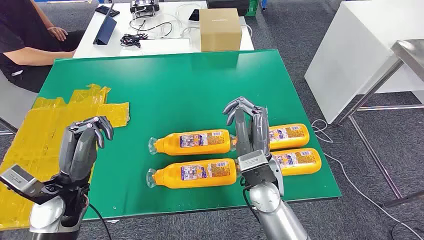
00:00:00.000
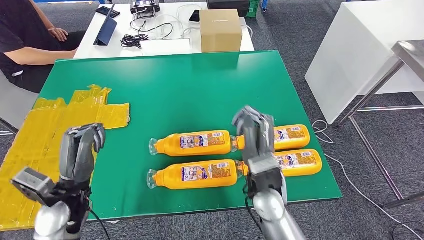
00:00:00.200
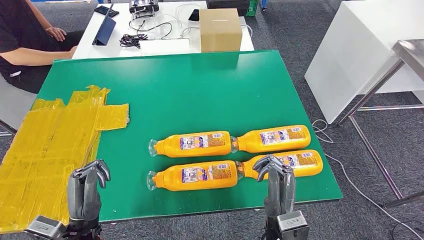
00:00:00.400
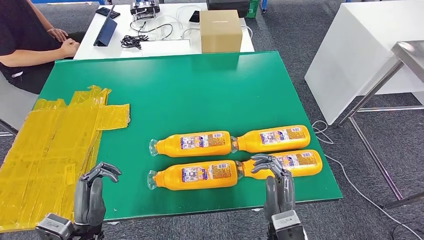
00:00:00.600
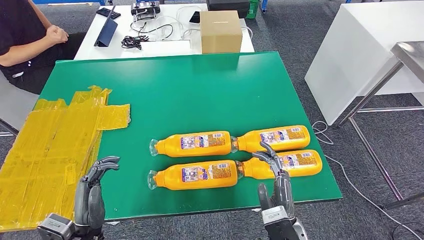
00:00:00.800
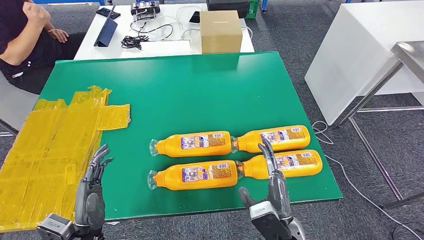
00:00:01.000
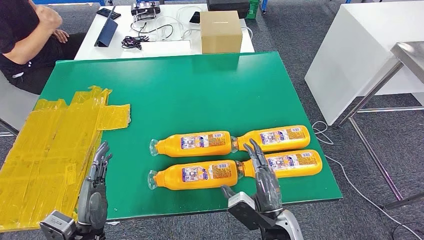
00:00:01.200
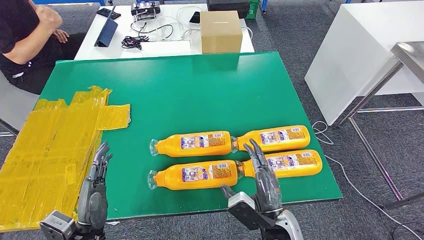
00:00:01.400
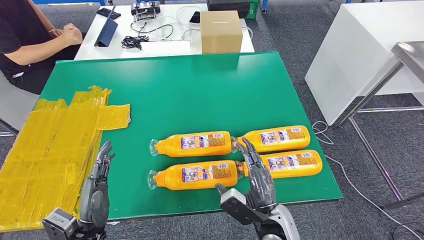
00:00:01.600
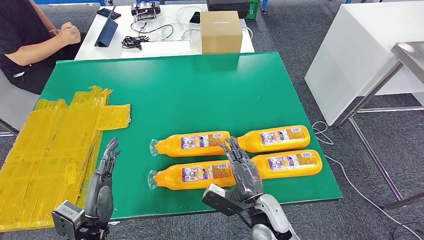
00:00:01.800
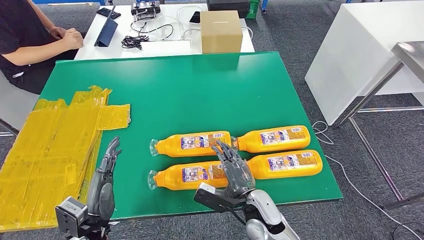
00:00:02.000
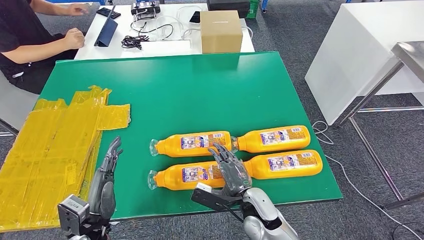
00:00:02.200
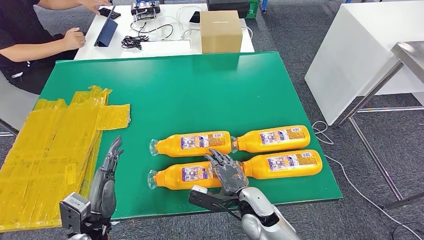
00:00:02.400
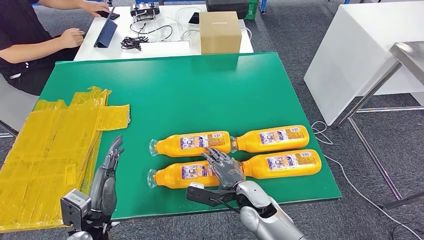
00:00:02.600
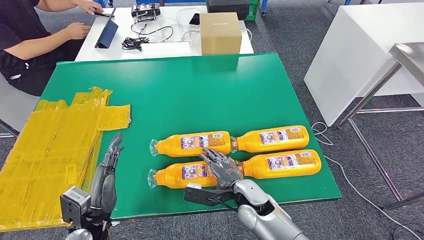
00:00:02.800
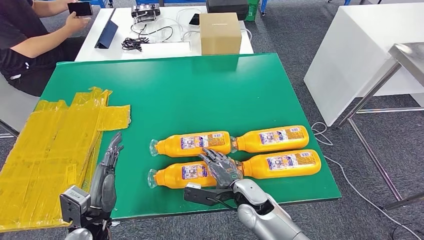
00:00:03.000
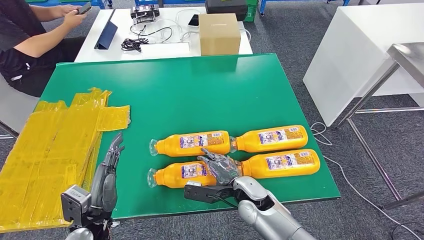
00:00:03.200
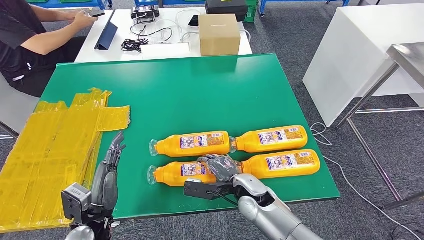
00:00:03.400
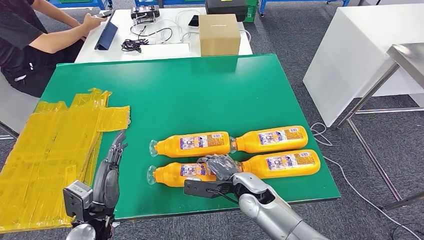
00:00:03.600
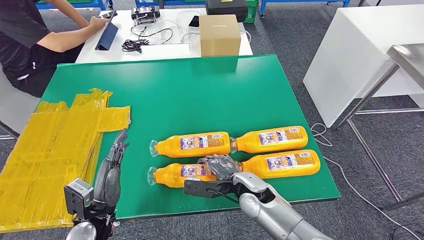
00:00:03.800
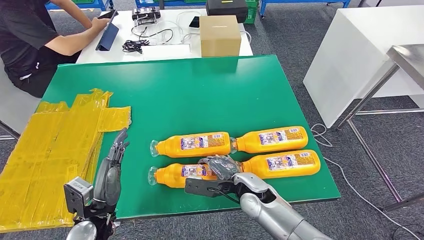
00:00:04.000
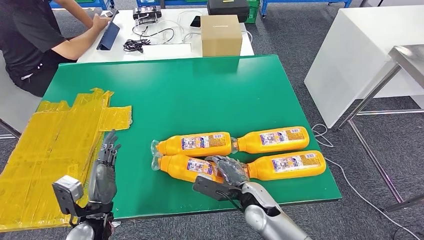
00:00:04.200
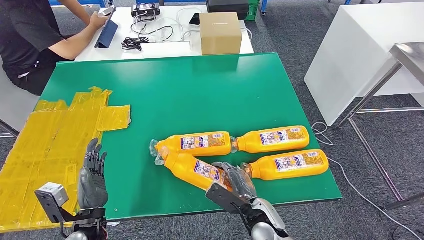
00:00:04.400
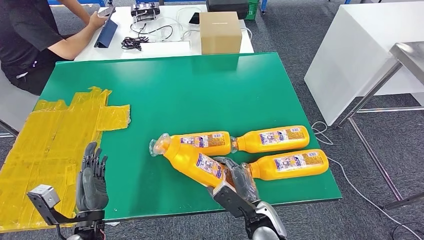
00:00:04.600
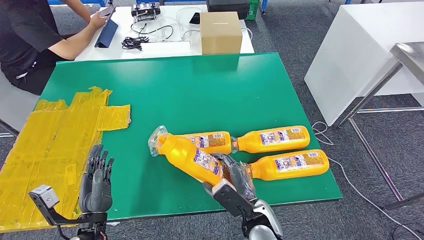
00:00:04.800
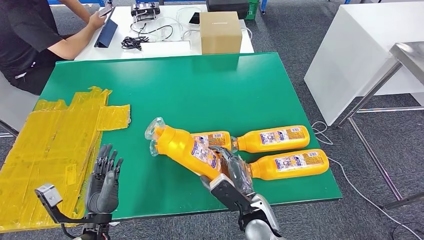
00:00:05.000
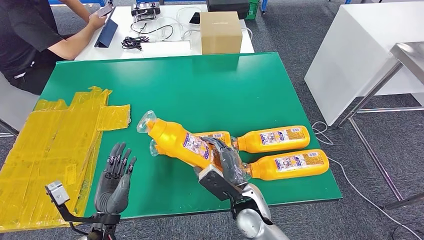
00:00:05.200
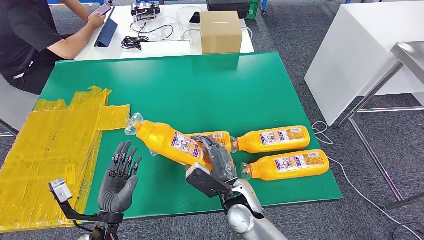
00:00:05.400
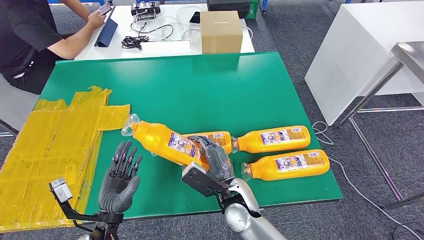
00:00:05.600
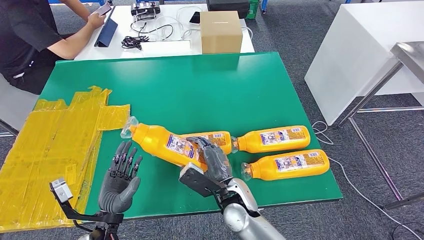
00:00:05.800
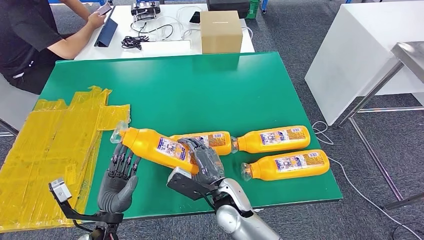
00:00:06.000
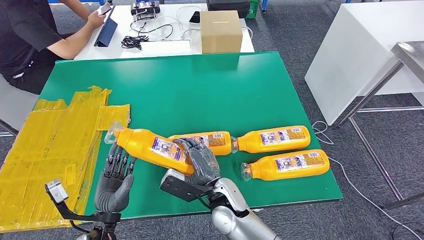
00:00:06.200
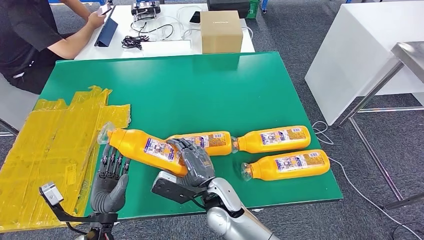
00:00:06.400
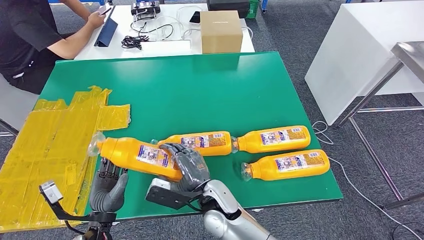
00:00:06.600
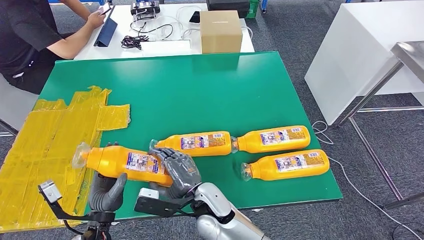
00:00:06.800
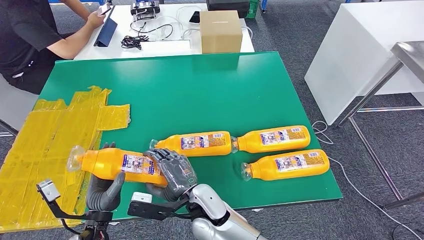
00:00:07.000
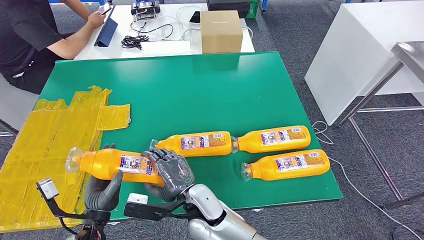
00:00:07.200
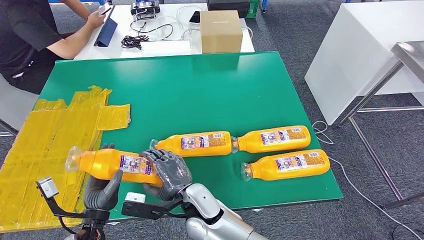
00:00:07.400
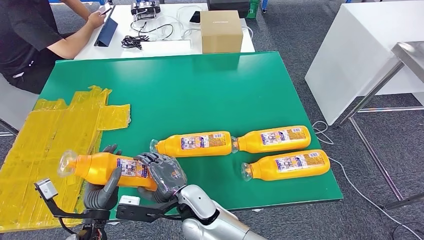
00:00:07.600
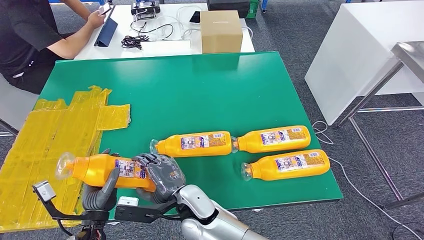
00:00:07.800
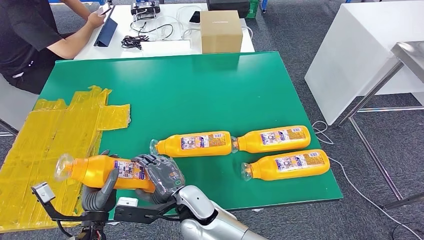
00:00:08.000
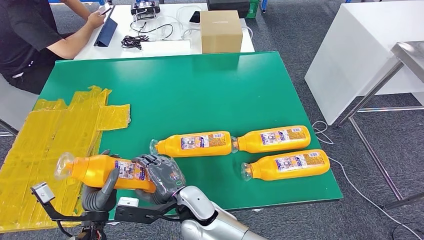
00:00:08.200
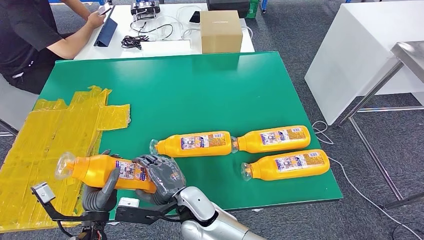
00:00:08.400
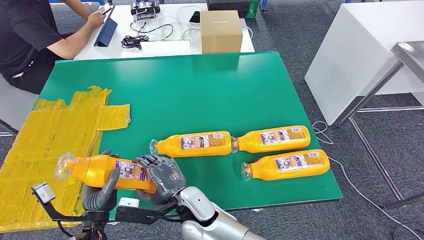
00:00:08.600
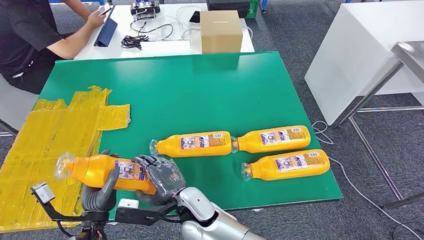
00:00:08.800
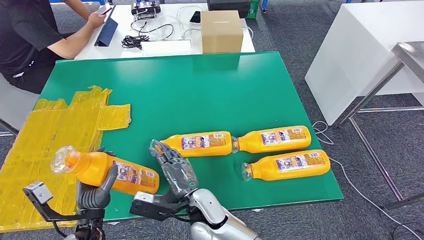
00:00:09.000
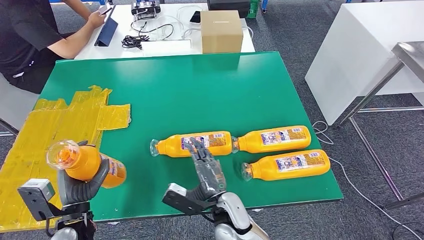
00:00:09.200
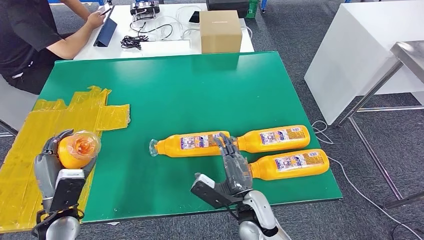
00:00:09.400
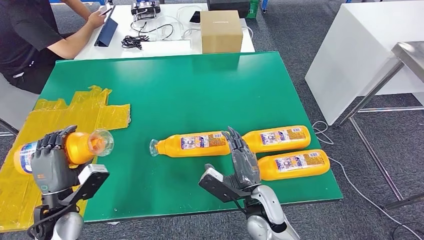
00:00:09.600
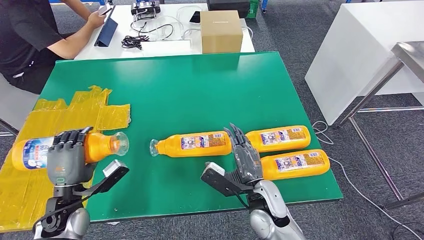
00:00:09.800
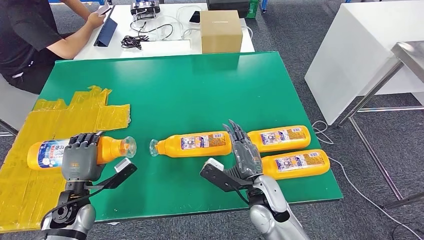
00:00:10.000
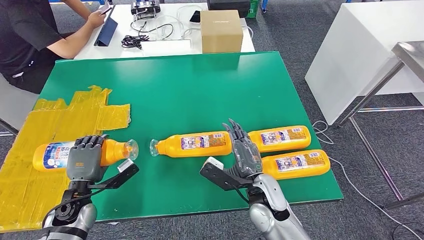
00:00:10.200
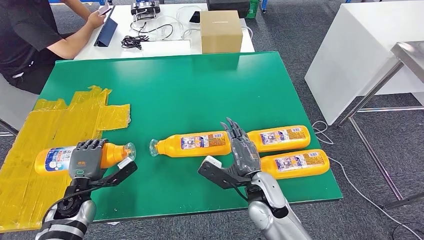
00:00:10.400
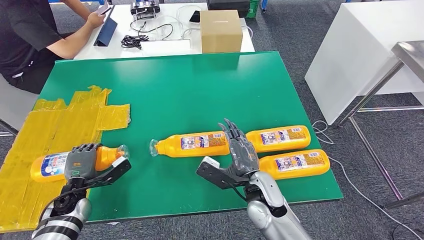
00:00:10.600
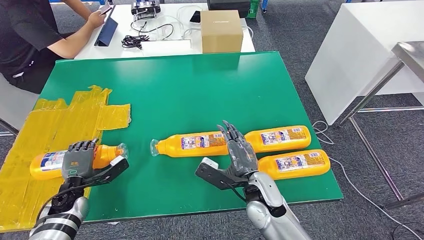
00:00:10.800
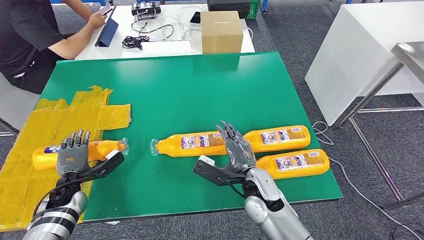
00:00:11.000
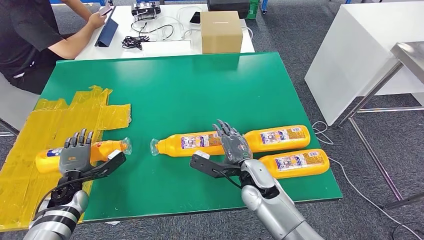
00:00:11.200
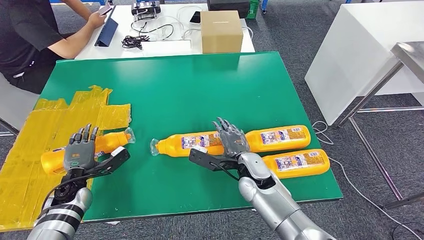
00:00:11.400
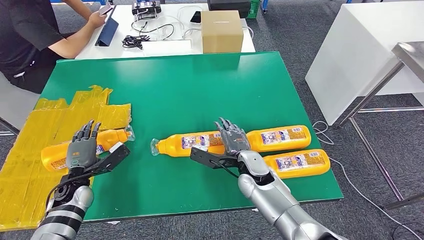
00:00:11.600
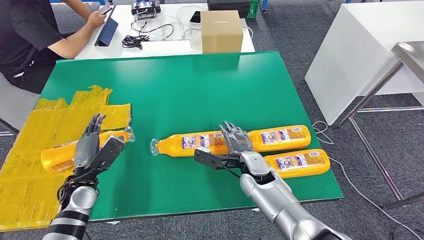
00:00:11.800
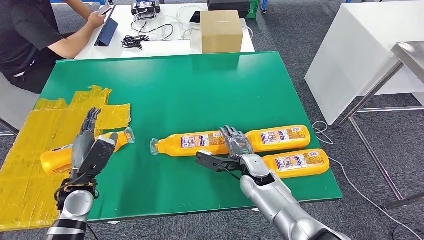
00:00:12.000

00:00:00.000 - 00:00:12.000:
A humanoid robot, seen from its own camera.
Step, 00:00:00.000 - 00:00:04.800: Take the bottle from the table.
Step, 00:00:05.600 - 00:00:10.800: Flip the bottle to face forward.
00:00:01.600 - 00:00:03.000: The right hand goes approximately 10 cm forward.
00:00:03.000 - 00:00:04.400: The right hand shifts about 5 cm backward.
00:00:04.400 - 00:00:06.000: The right hand heads to the left, covering approximately 10 cm.
00:00:06.000 - 00:00:07.600: The right hand travels to the left by approximately 10 cm.
00:00:07.600 - 00:00:09.000: The hands make only small movements.
00:00:09.000 - 00:00:10.400: The right hand is displaced to the right by roughly 15 cm. The left hand shifts some 10 cm forward and to the left.
00:00:10.400 - 00:00:12.000: The left hand goes roughly 5 cm upward. Meanwhile the right hand is displaced forward by approximately 10 cm.

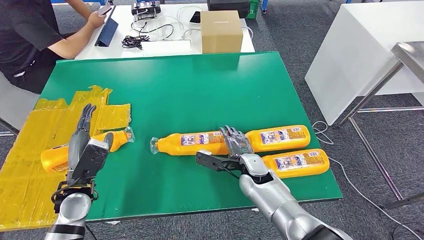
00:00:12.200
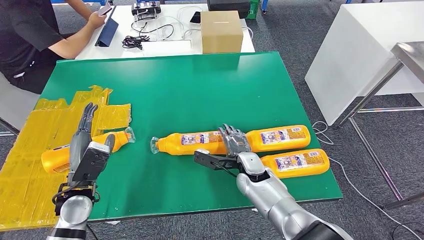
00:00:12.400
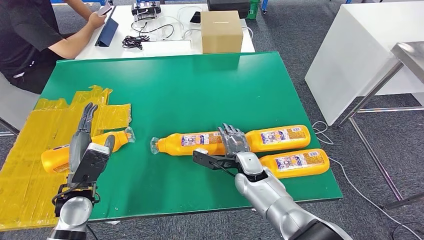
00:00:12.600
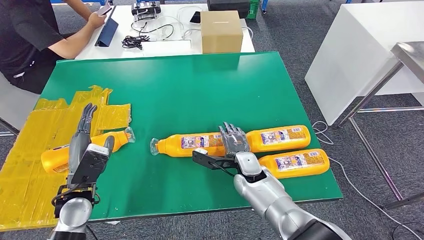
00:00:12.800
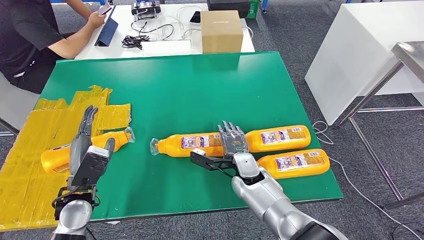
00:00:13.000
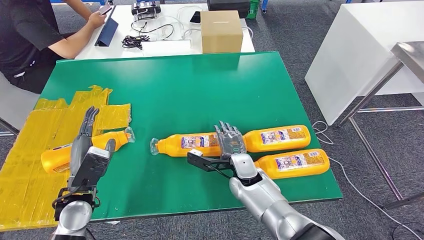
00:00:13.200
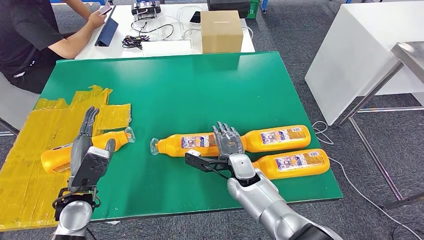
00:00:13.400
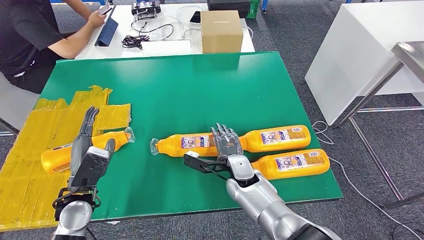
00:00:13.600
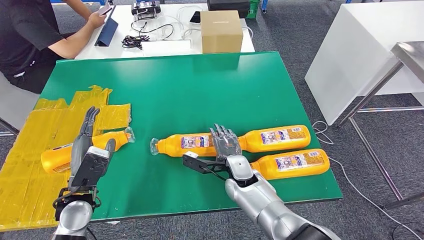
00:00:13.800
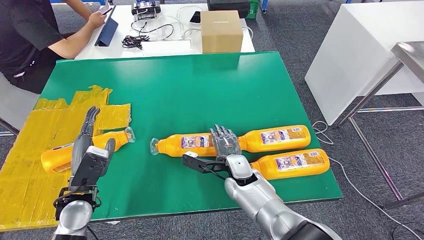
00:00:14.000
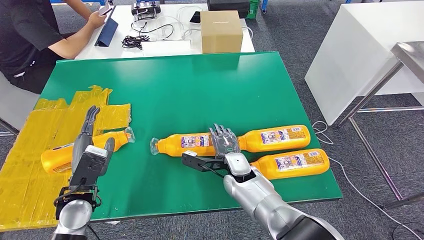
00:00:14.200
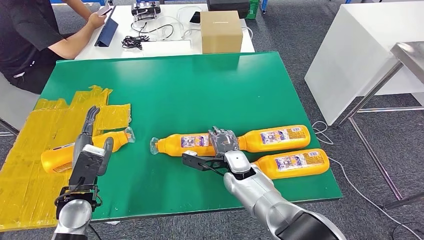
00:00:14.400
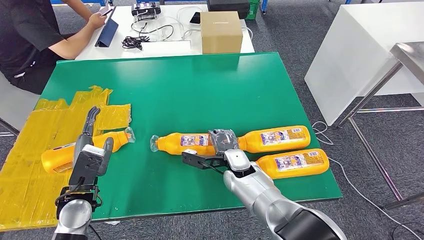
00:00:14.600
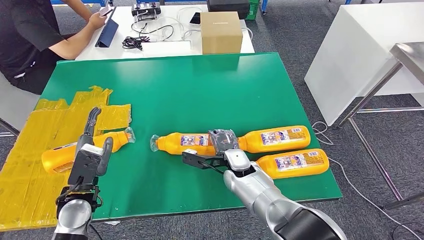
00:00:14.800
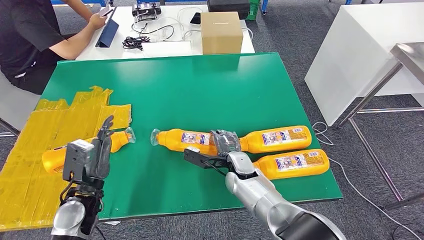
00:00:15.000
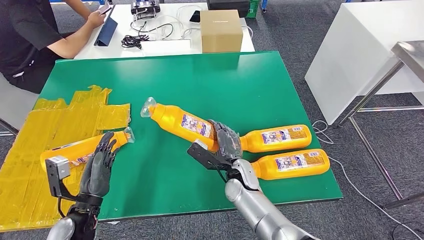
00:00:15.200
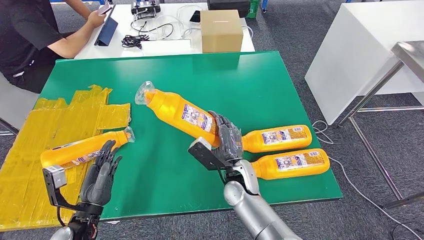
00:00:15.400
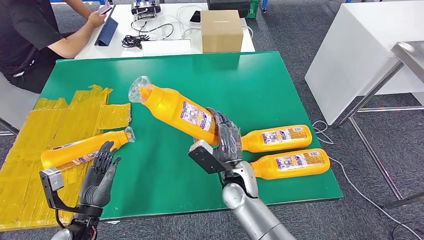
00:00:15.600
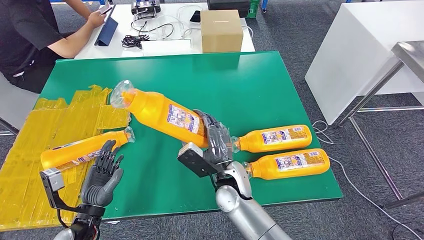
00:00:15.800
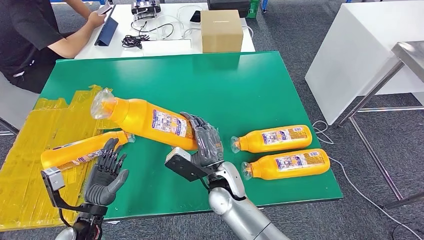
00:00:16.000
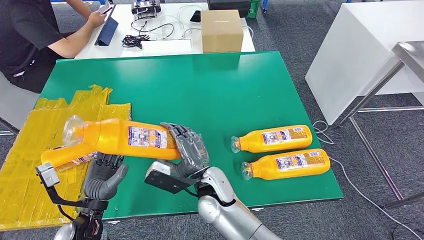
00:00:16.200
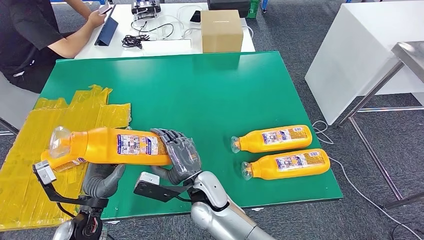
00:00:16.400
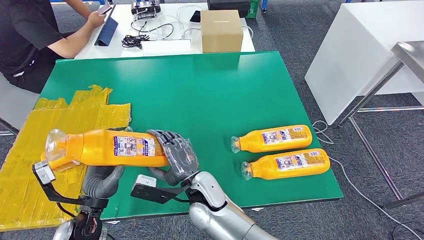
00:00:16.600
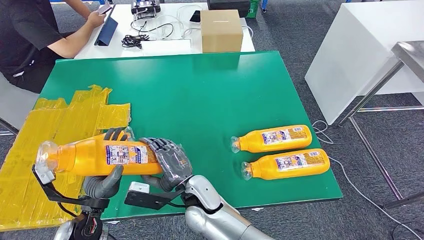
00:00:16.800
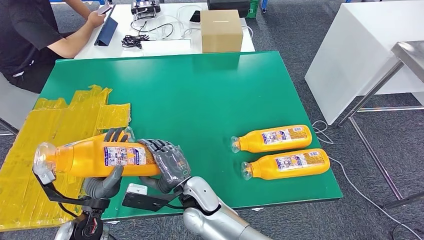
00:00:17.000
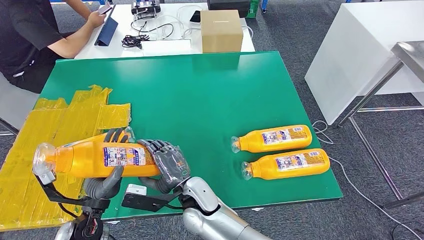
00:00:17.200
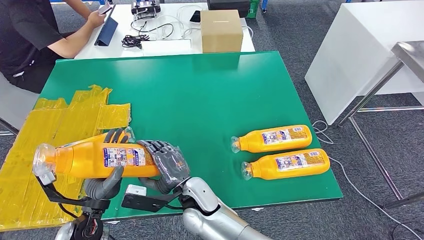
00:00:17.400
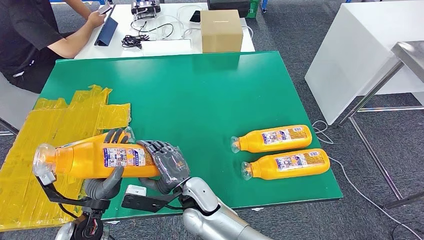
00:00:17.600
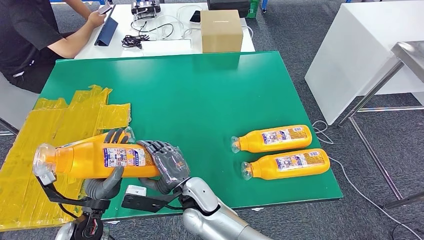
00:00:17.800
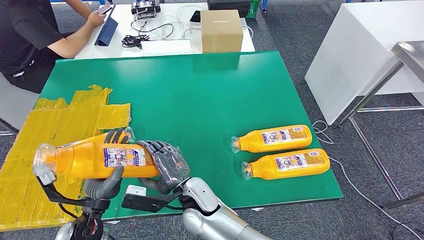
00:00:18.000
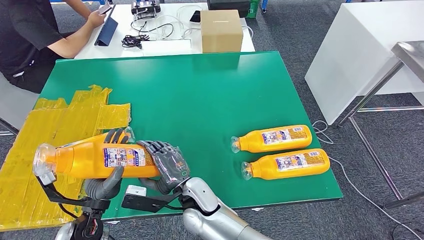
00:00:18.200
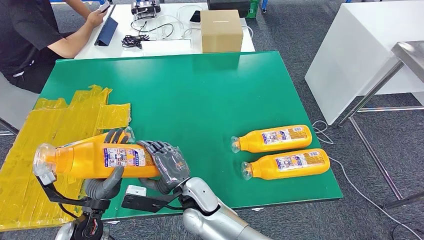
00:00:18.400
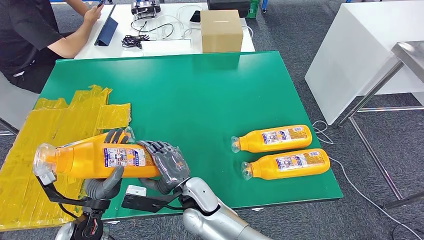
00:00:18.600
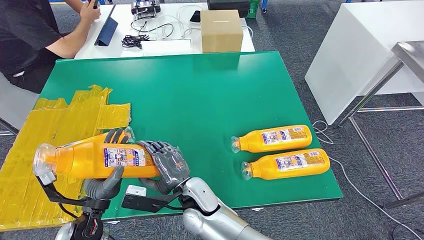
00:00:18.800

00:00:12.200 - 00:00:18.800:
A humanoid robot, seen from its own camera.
Step, 00:00:12.600 - 00:00:16.000: Pick up the bottle from the table.
00:00:12.200 - 00:00:13.800: The hands make only small movements.
00:00:13.800 - 00:00:15.400: The left hand is displaced downward by about 5 cm.
00:00:15.400 - 00:00:17.200: The right hand shifts about 15 cm to the left and backward.
00:00:17.200 - 00:00:18.800: Both hands stay put.
